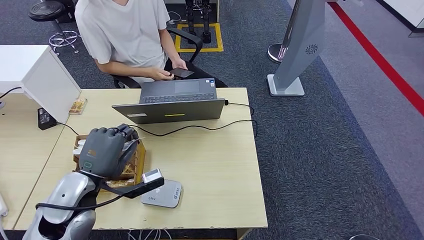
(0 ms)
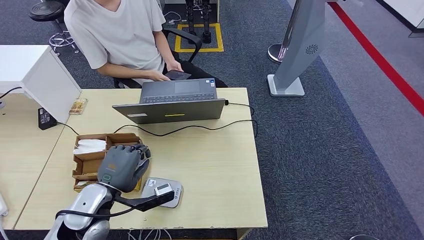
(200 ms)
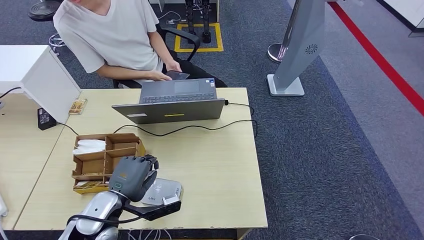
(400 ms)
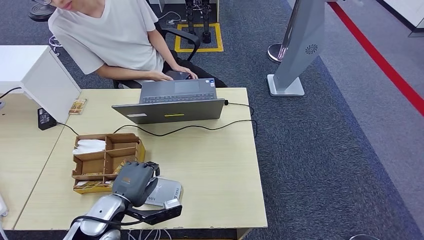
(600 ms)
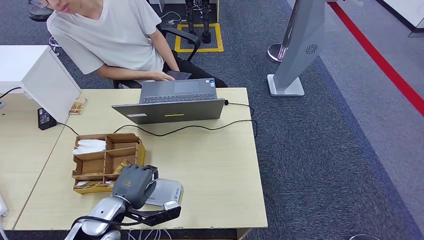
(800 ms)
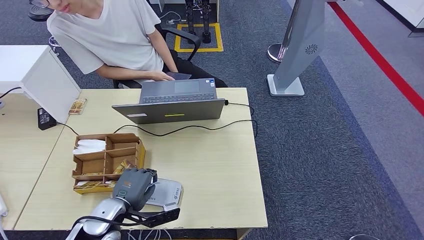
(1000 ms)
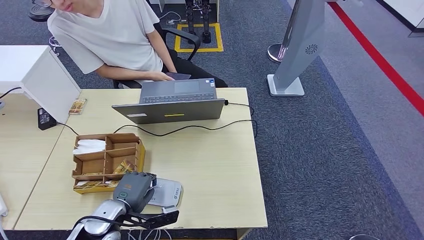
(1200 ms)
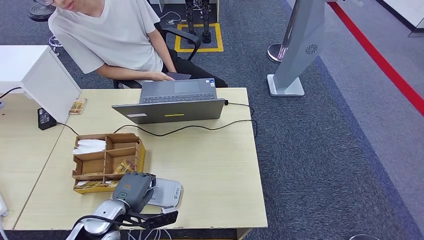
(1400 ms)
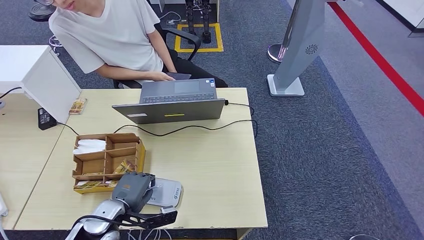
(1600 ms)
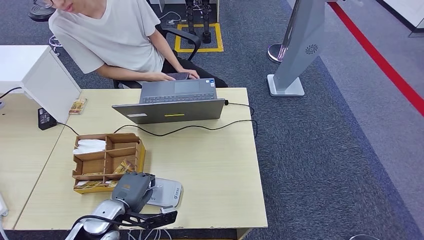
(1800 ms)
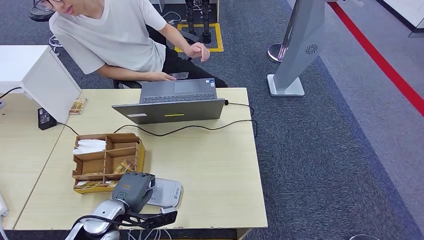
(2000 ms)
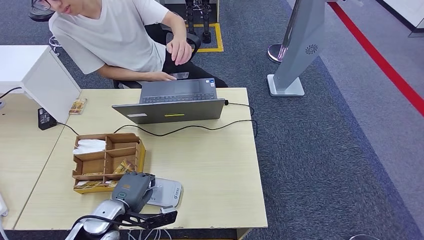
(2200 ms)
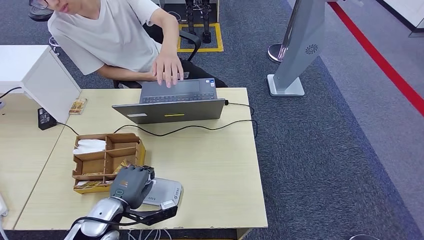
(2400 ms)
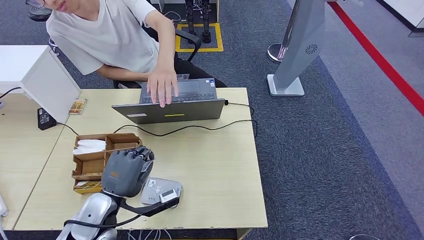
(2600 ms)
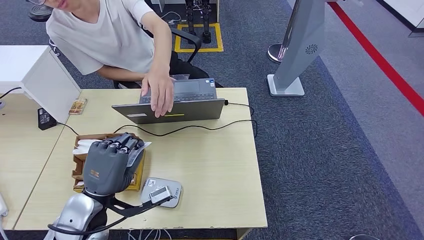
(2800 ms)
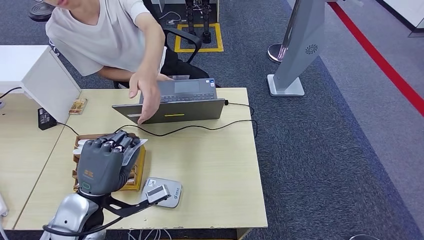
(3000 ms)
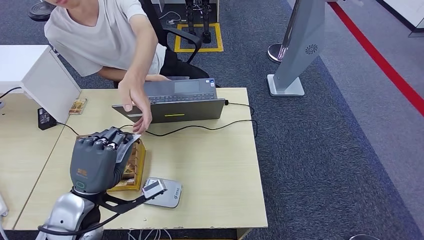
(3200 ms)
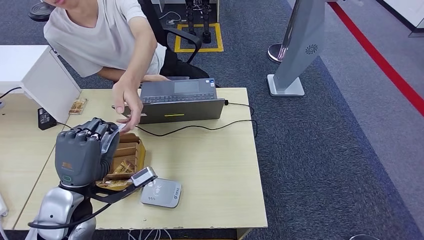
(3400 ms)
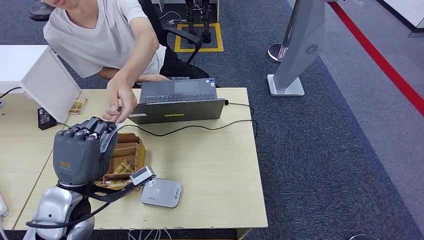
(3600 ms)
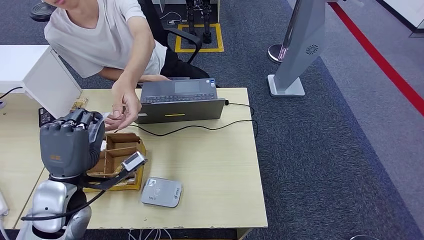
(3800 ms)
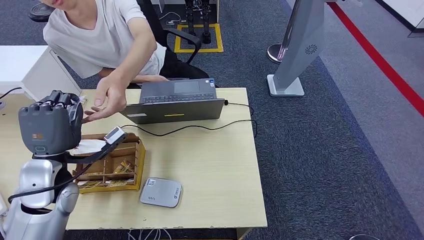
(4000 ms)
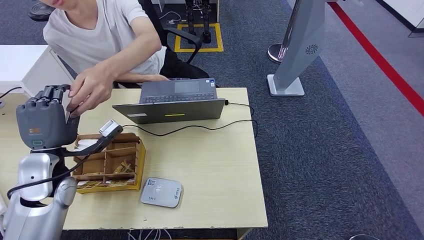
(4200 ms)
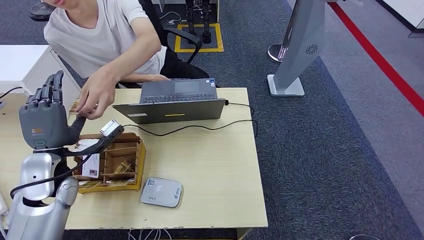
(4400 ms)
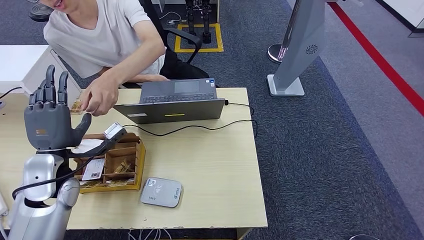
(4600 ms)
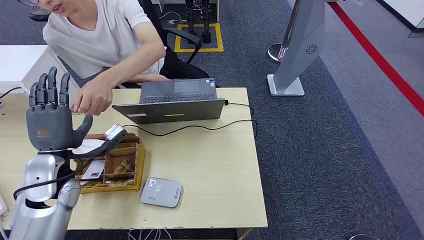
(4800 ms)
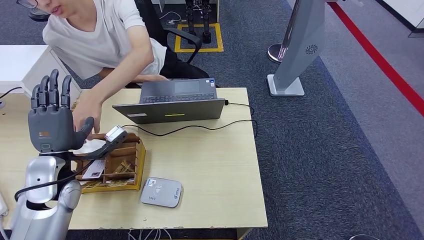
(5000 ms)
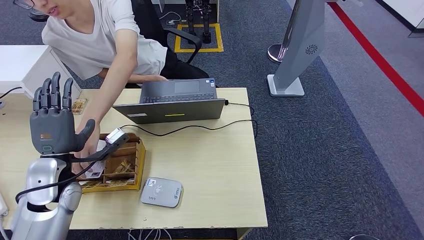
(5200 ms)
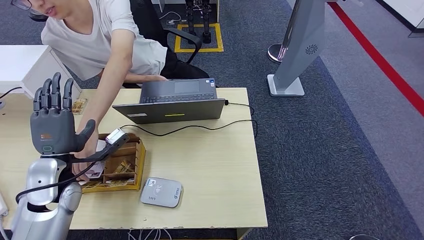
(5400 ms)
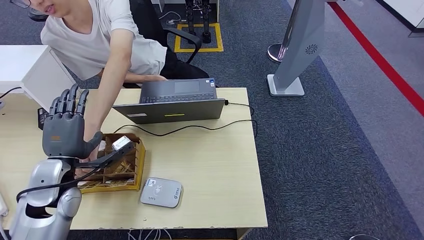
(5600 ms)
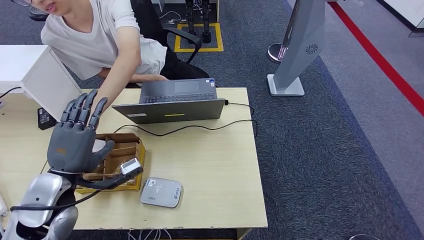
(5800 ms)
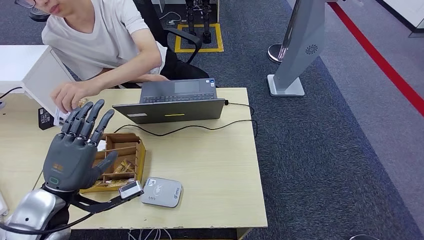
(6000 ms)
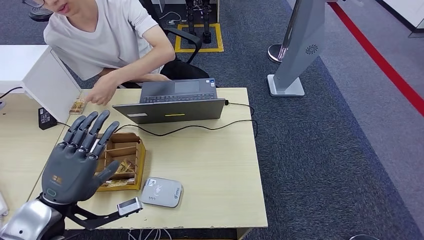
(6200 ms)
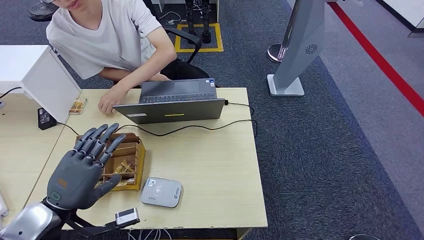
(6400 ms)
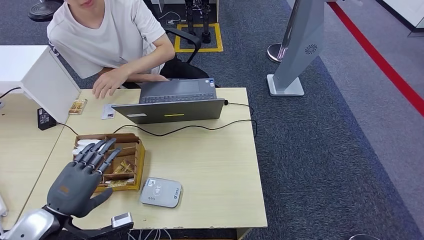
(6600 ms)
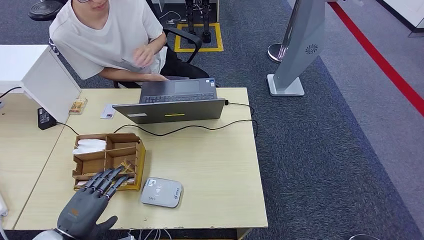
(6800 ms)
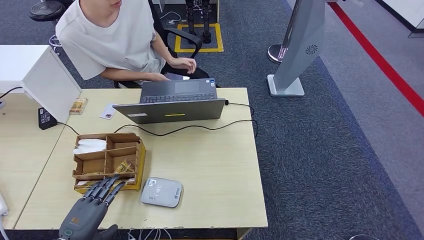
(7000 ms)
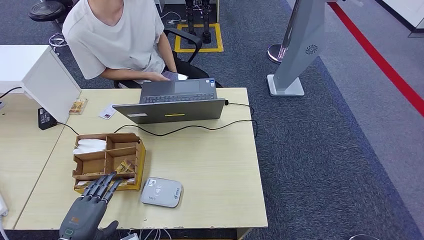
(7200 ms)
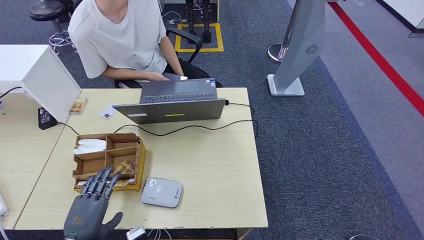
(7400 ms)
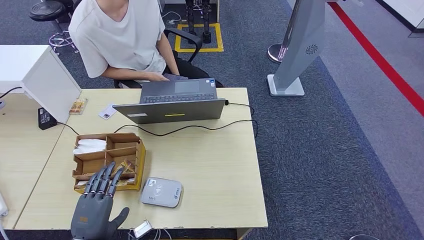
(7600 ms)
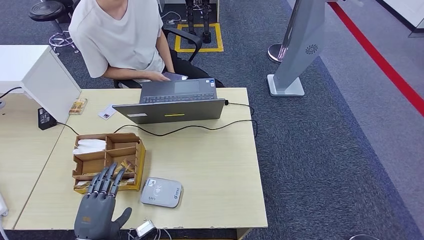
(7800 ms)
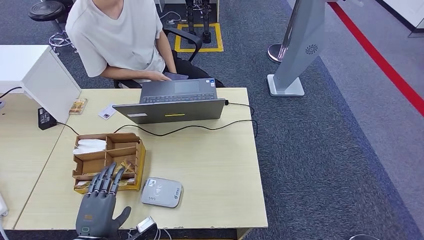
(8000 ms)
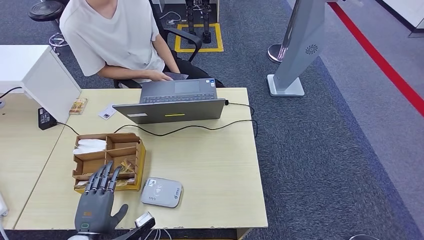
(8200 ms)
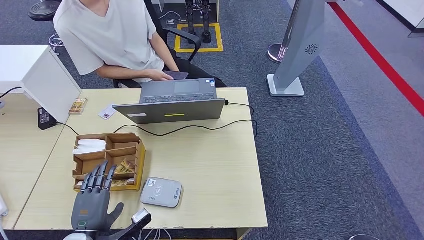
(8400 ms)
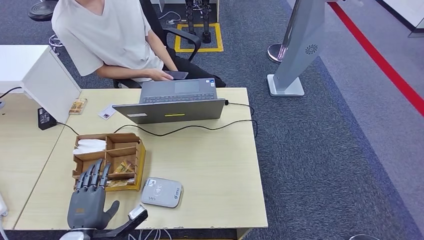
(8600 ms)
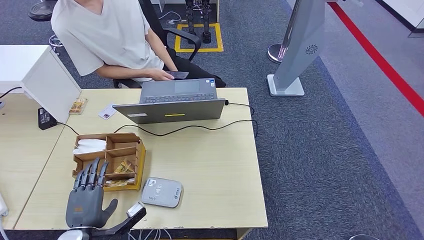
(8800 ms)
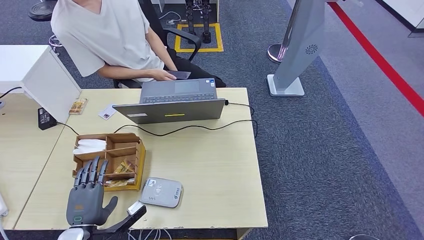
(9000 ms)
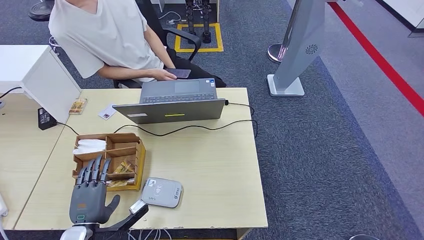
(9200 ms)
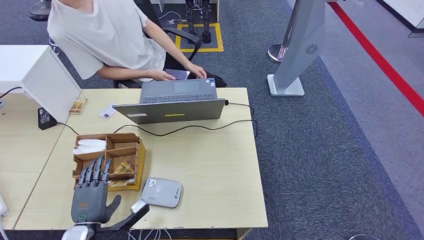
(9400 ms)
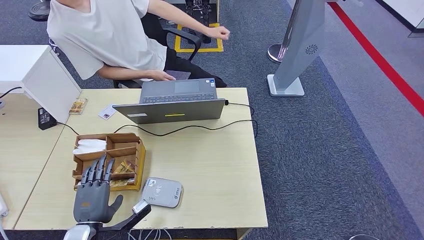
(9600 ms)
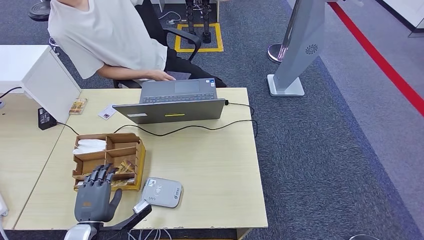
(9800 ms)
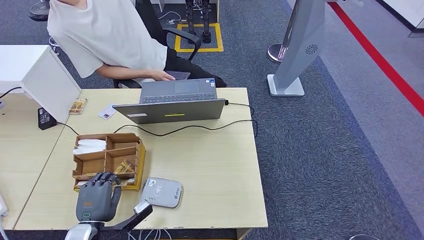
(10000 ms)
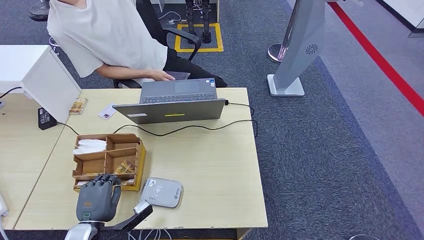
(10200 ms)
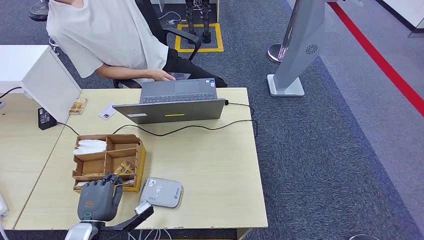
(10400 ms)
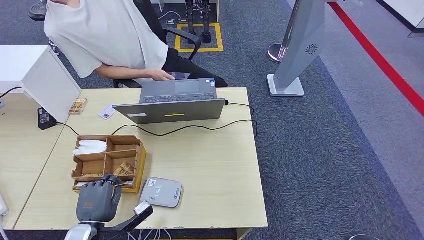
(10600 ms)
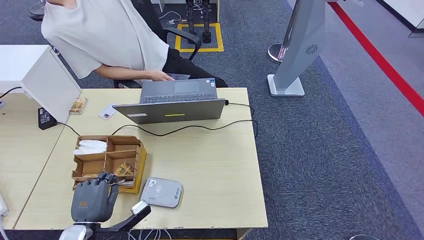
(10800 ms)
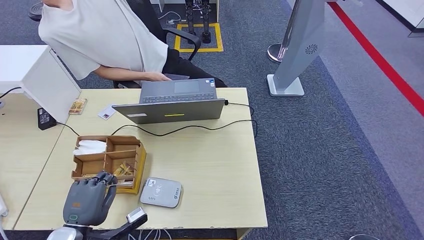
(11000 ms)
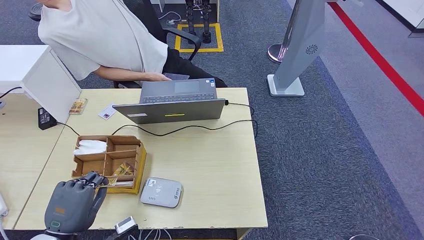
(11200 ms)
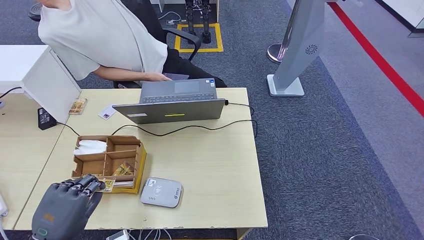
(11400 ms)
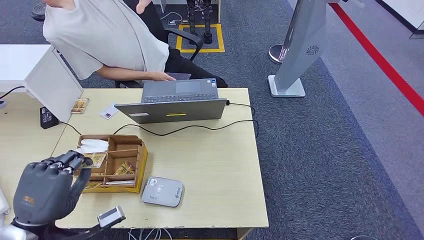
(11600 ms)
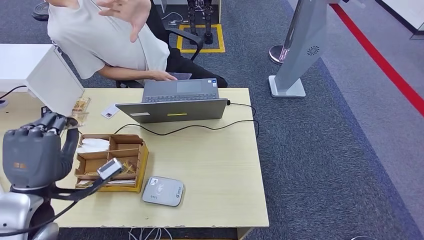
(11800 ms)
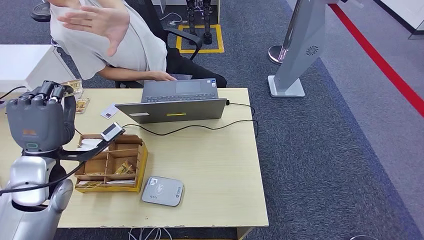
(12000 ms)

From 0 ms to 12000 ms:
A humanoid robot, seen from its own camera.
Step, from 0 ms to 2800 ms: Place the ID card on the card reader.
Step, from 3000 ms to 6200 ms: Hand the ID card to the person.
From 0 ms to 1600 ms: The left hand moves downward, some 10 cm.
From 1600 ms to 3000 ms: The left hand shifts roughly 10 cm upward.
From 3000 ms to 4400 ms: The left hand moves forward and to the left, roughly 15 cm.
From 4400 ms to 6000 ms: The left hand shifts roughly 10 cm backward.
From 6000 ms to 7600 ms: The left hand is displaced downward and backward by some 15 cm.
From 7600 ms to 9000 ms: The left hand moves roughly 5 cm.
From 9000 ms to 10400 ms: The hands stay close to where they were, moving slightly.
From 10400 ms to 12000 ms: The left hand shifts roughly 20 cm upward and forward.

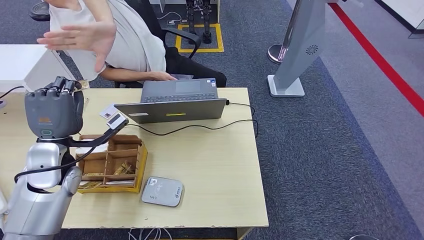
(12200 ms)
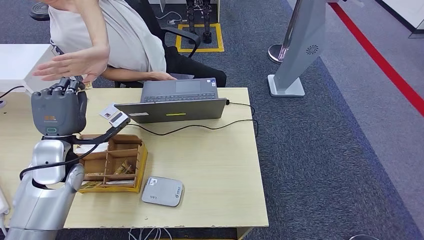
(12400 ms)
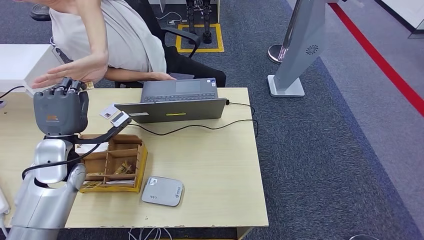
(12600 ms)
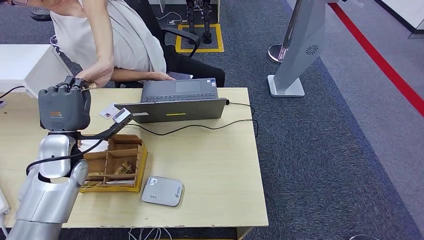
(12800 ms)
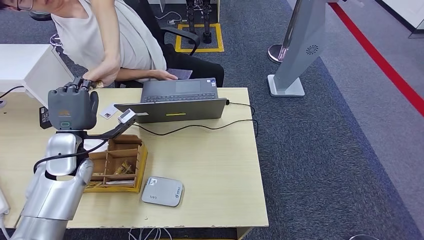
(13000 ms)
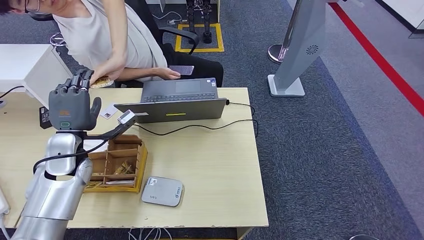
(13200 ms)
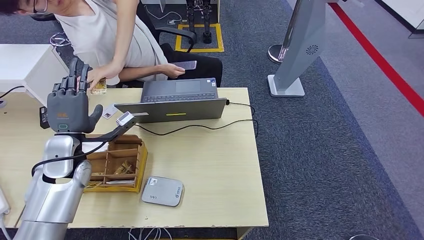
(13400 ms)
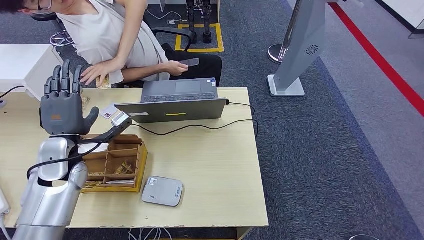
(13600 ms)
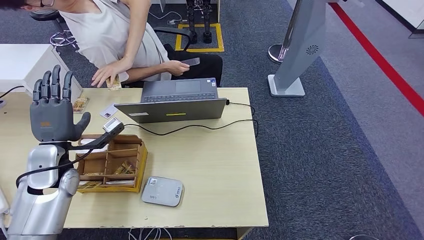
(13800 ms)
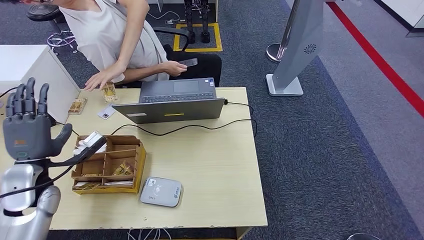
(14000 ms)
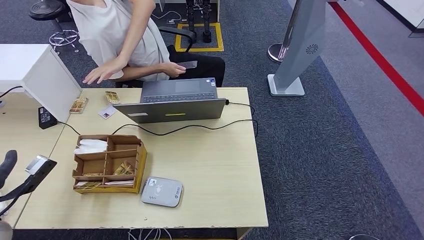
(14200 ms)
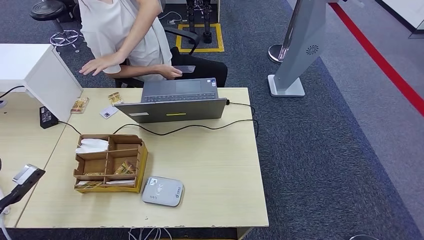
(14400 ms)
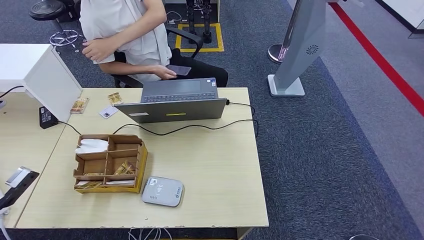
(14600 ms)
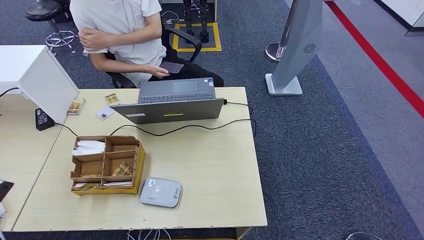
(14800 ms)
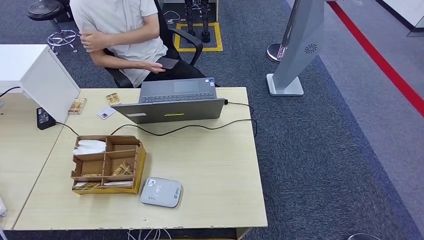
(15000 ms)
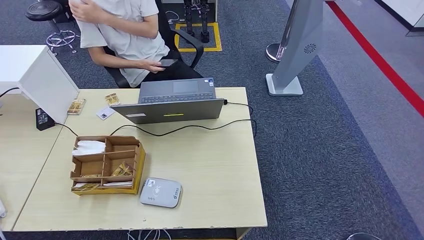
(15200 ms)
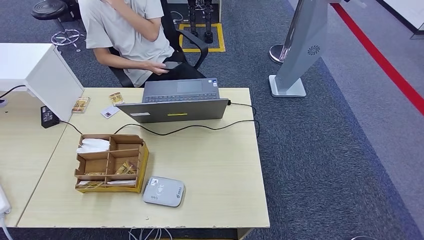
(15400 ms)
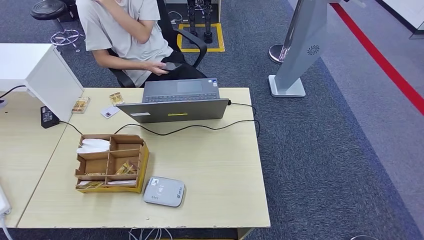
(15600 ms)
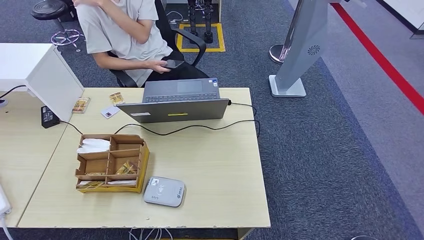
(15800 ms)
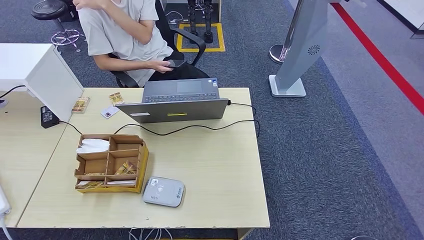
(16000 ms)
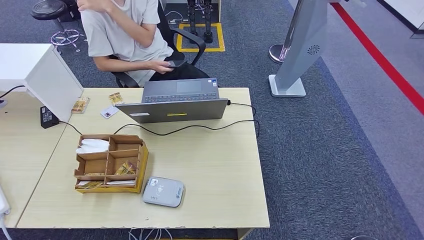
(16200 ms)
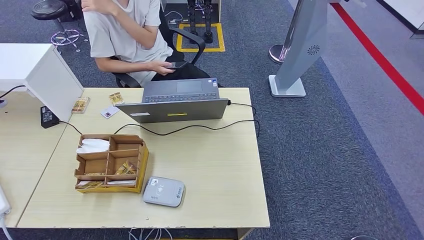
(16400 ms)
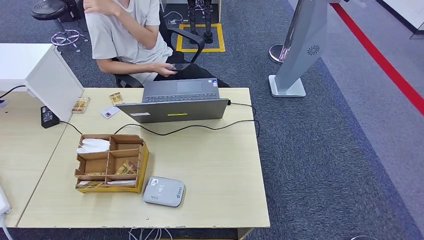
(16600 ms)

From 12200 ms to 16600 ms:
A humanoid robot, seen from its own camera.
Step, from 13000 ms to 16600 ms: Hand the room key to the person.
From 12200 ms to 13600 ms: The hands move only a little.
From 15200 ms to 16600 ms: The left hand moves to the right and downward, about 35 cm.
